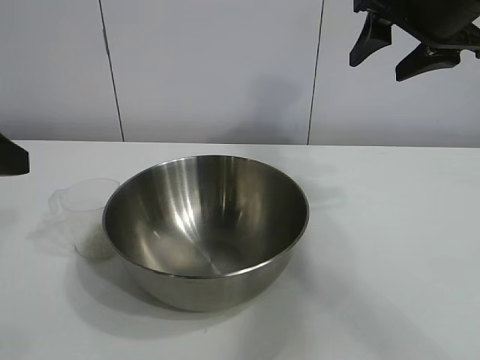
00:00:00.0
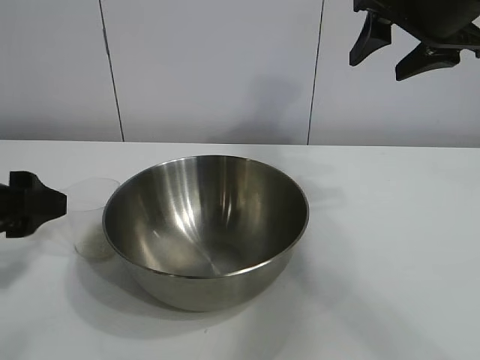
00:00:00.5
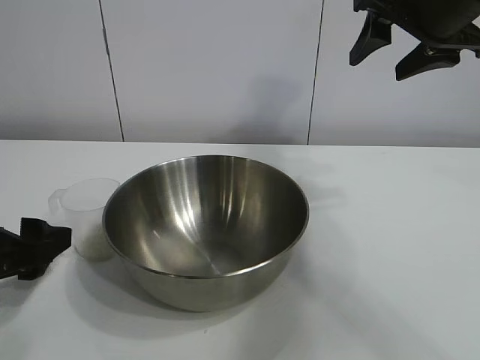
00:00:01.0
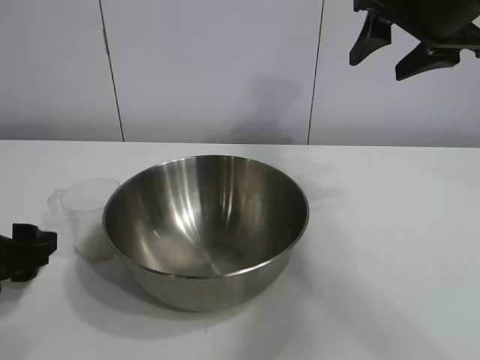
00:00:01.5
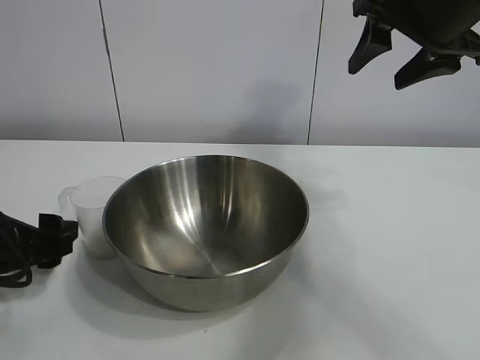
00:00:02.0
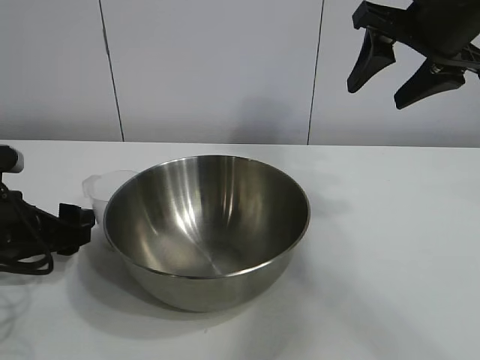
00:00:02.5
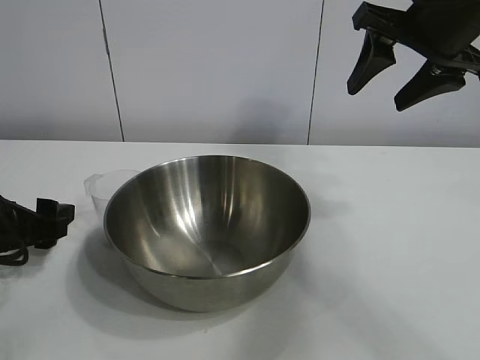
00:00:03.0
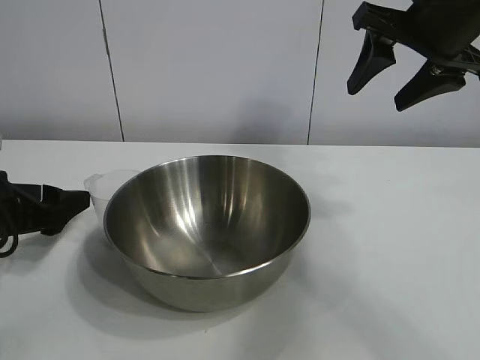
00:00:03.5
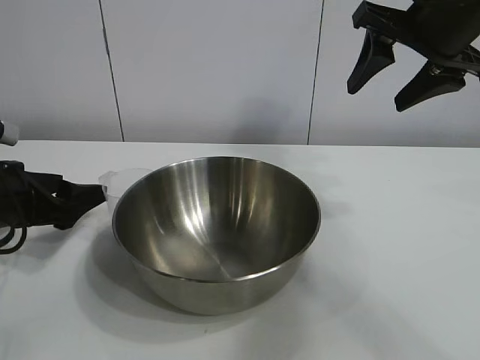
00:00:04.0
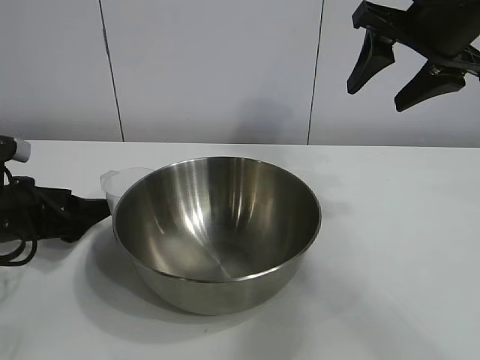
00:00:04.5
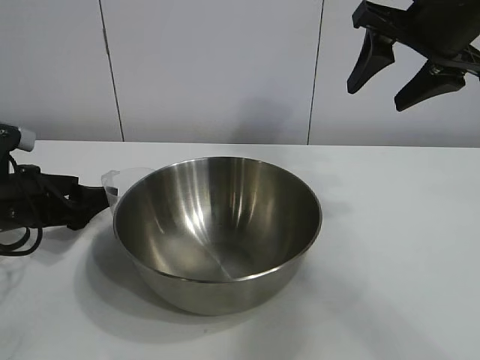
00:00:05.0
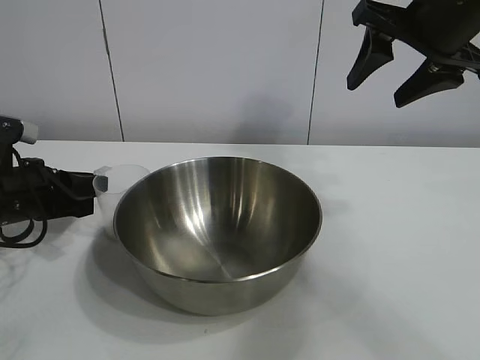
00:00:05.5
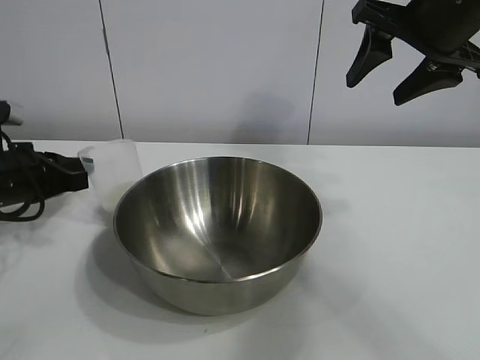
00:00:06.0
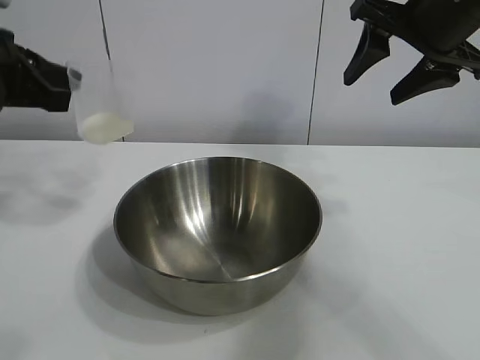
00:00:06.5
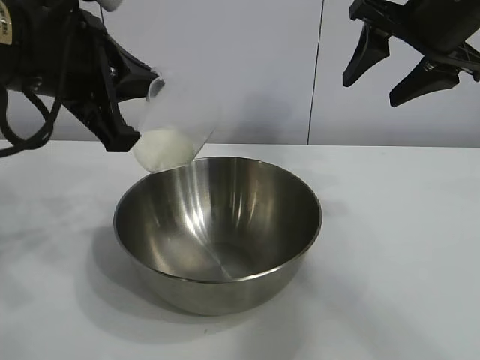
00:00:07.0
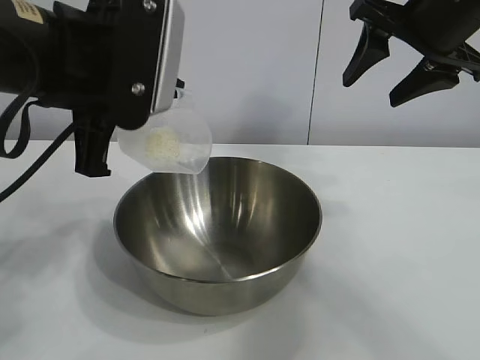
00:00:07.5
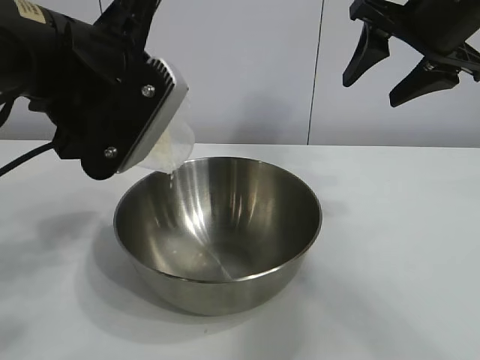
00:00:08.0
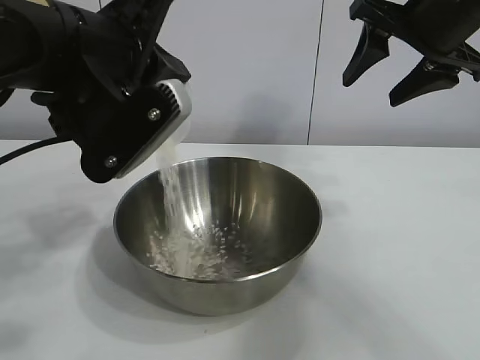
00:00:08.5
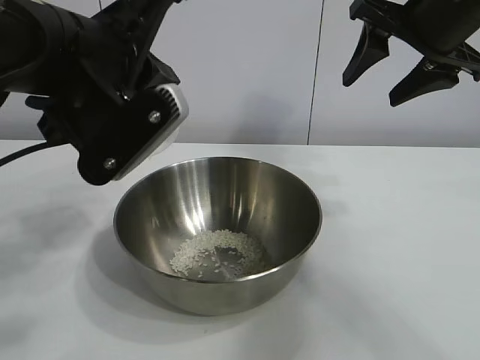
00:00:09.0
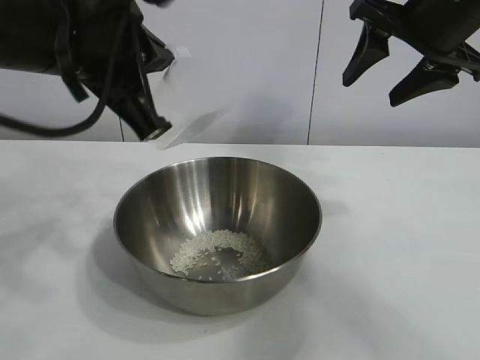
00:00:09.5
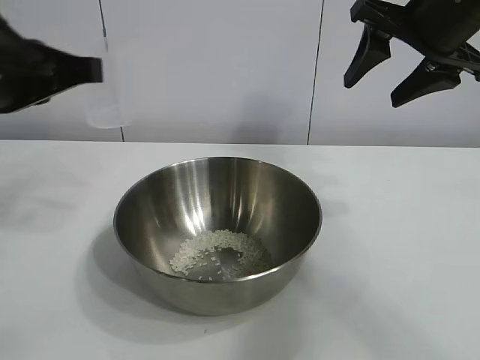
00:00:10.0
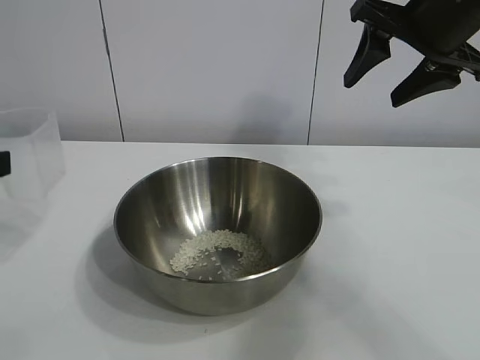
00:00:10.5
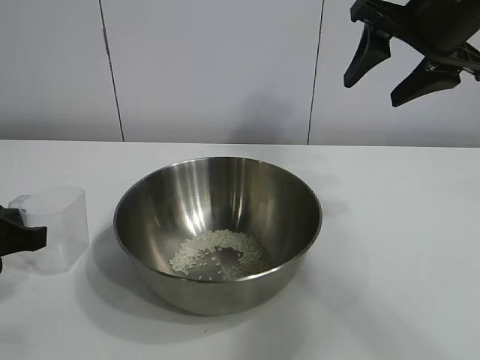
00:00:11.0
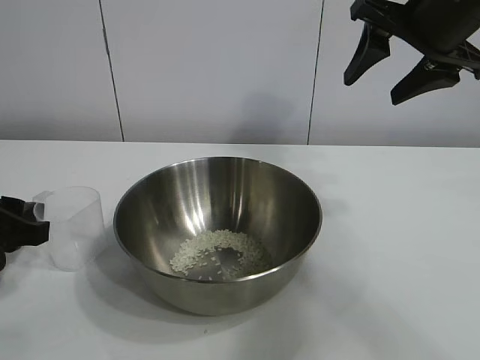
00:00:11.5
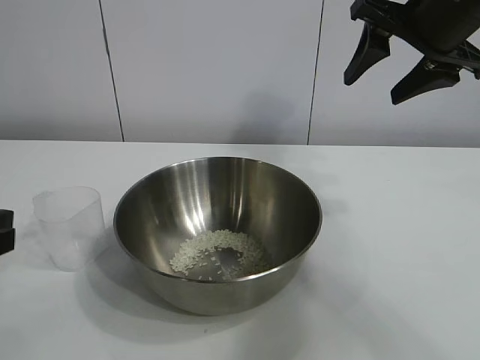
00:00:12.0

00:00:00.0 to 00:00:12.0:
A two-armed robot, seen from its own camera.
Task of the whole recording: the right gripper grasp the rice container and place it in the center of the table, the left gripper grasp the rice scoop and pour the rice into the rice container.
Step, 00:00:00.0 to 00:00:05.5: Grasp the cup with rice in it with left gripper.
Step, 00:00:06.0 to 00:00:09.0: Pour the rice from the cup into the bowl with the left gripper.
Step, 00:00:09.5 to 00:00:11.5: Place the cup on the table with the left gripper.

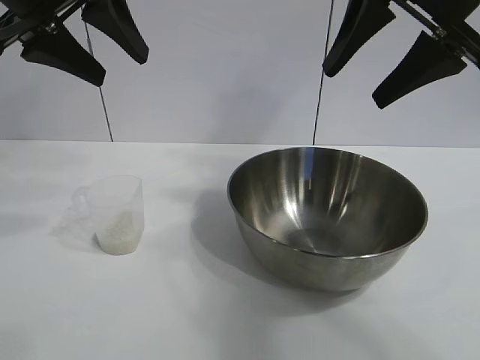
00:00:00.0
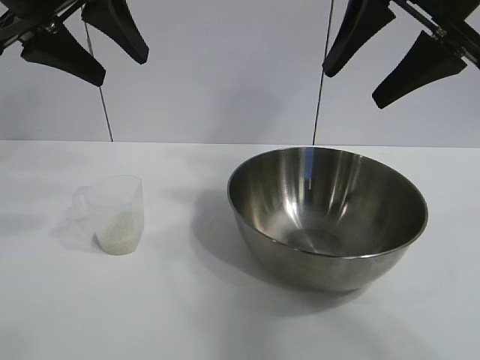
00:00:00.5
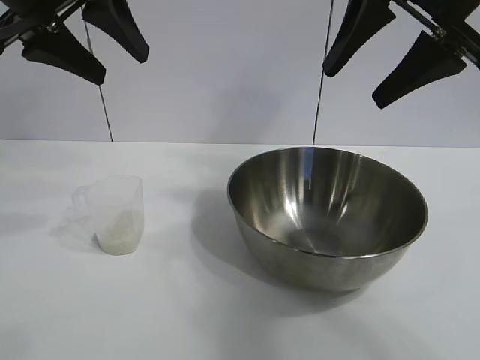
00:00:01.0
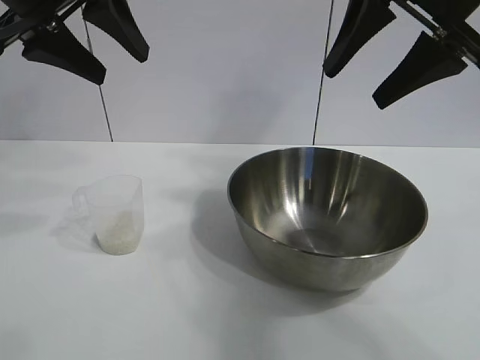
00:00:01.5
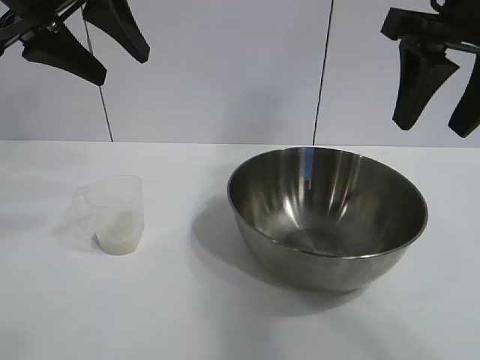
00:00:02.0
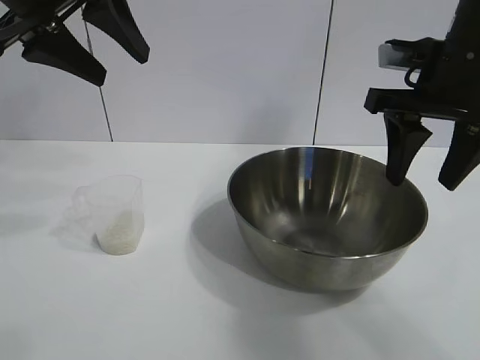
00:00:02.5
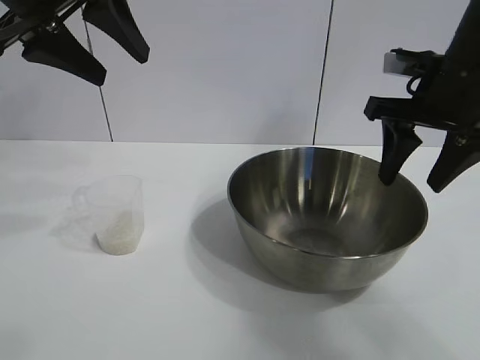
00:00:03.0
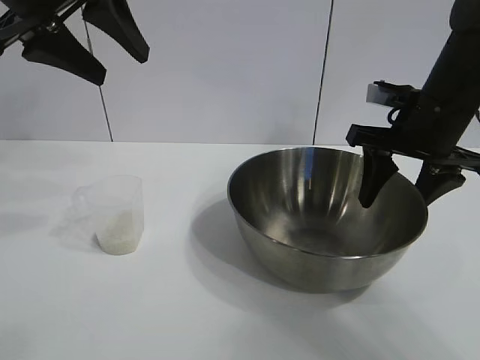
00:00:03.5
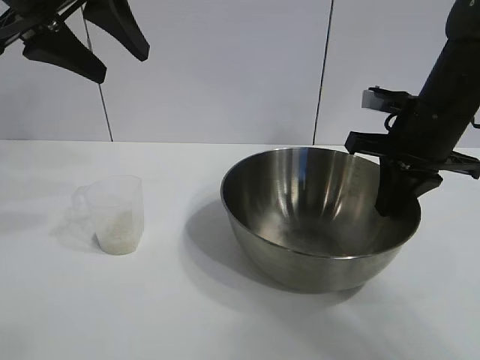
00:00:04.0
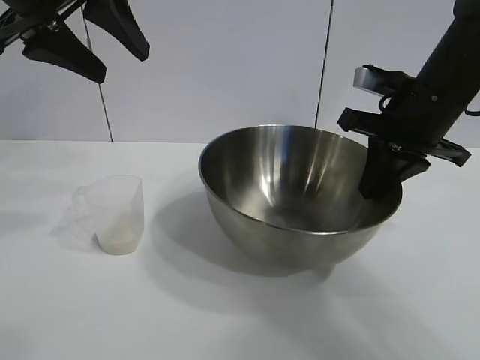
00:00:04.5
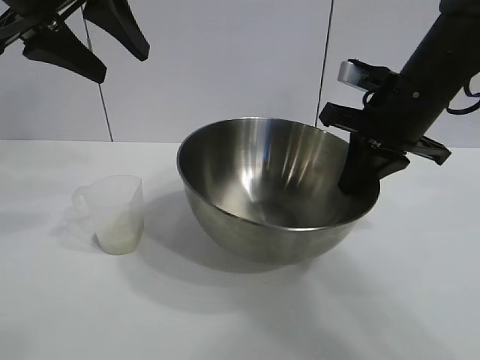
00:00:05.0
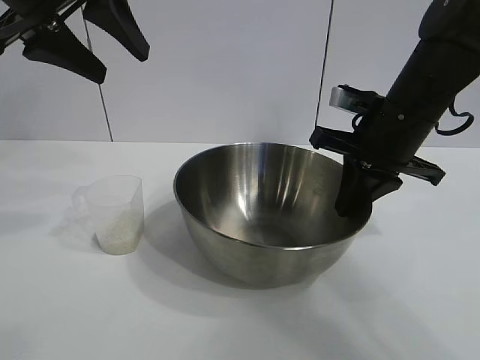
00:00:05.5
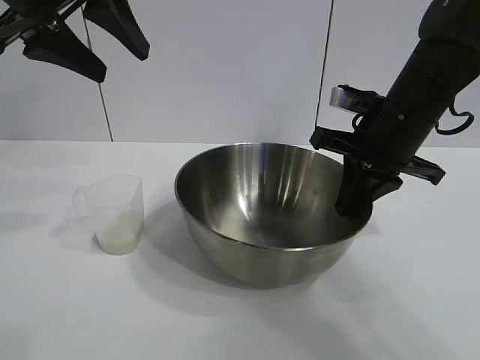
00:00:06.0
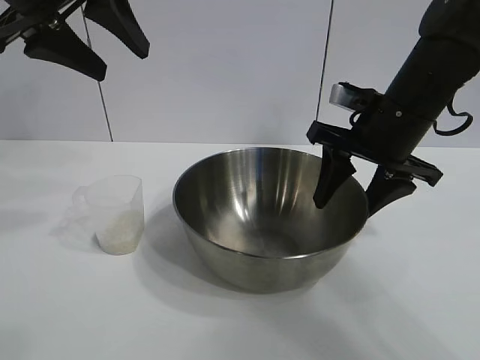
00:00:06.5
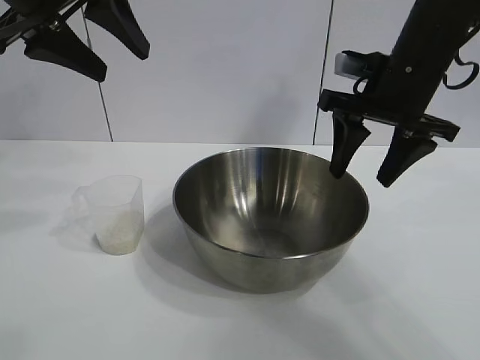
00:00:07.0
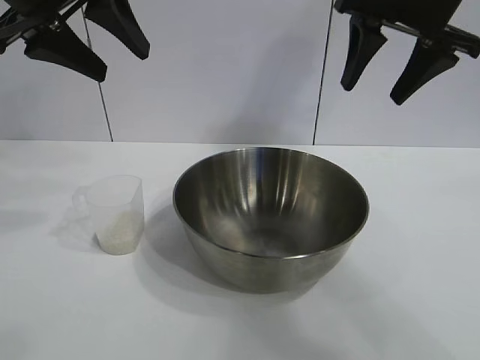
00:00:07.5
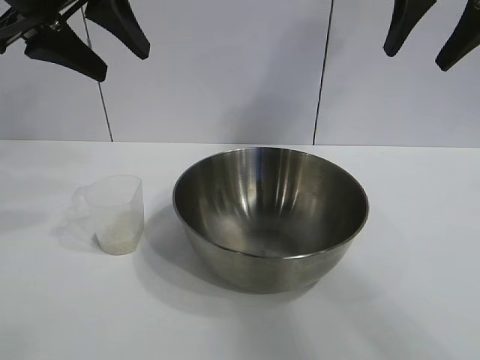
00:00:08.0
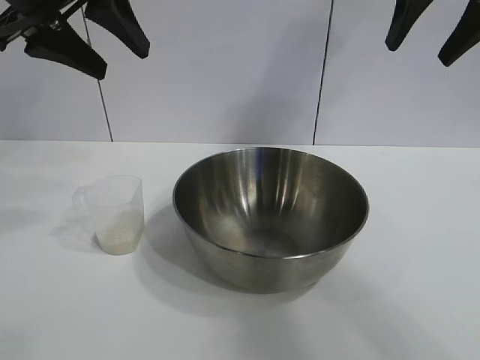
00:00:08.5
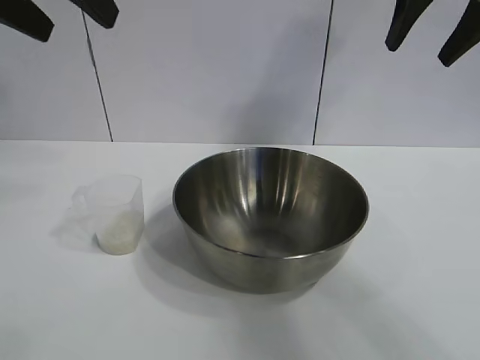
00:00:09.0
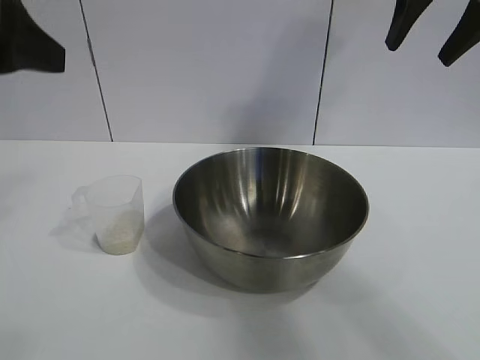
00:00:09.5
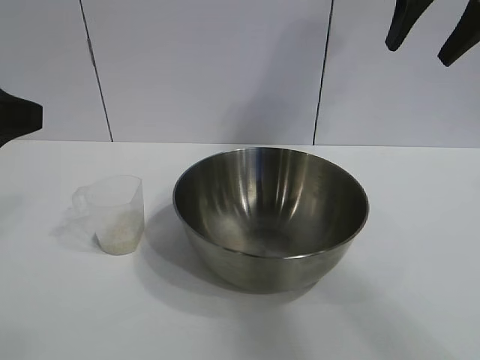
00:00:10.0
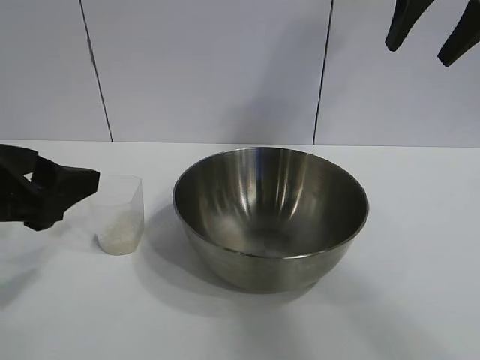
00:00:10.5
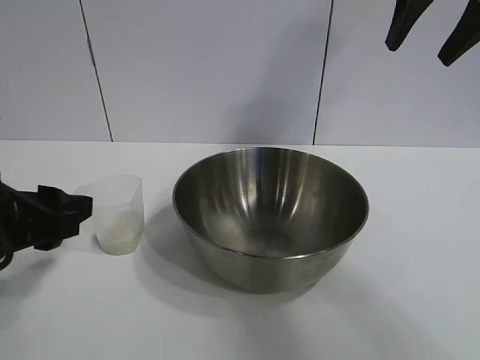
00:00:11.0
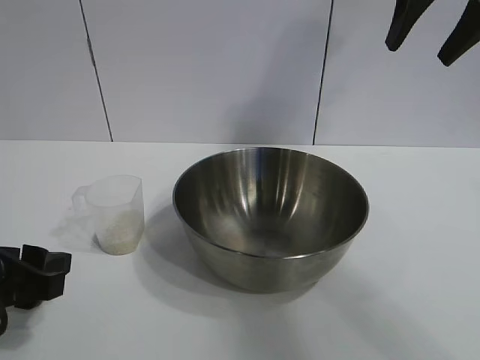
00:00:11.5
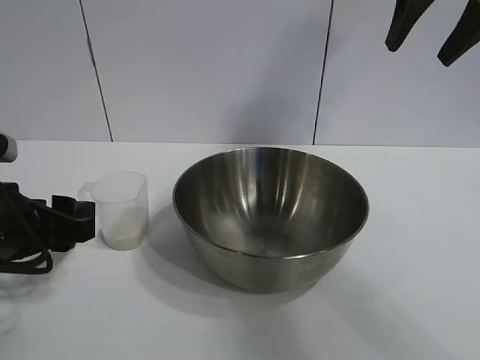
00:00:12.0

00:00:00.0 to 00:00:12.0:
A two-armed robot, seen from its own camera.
Task of the whole recording: the right gripper grasp the rice container and place it in the center of the table, the left gripper grasp the rice scoop and pour the rice into the rice container.
Step, 00:00:01.5 to 00:00:06.5: Move the bowl in the center of view with right gripper.

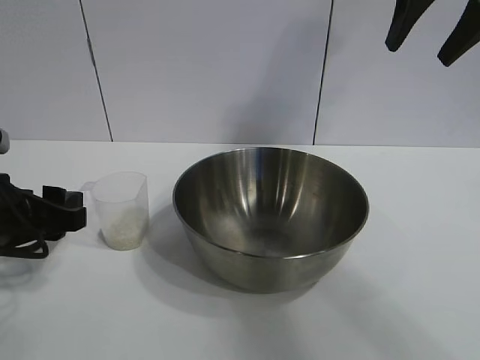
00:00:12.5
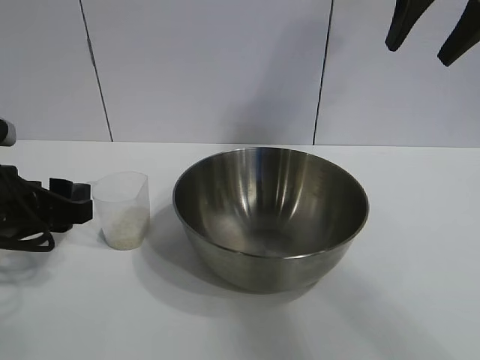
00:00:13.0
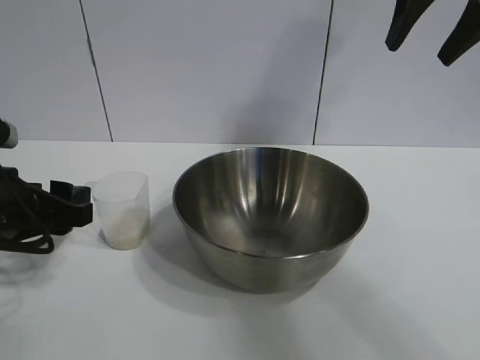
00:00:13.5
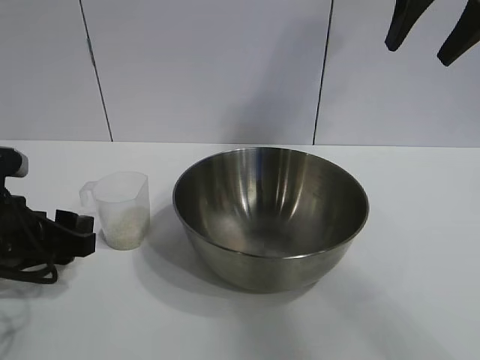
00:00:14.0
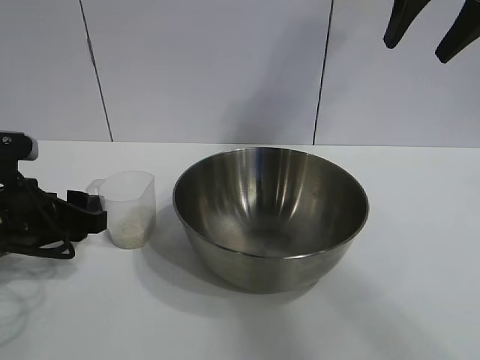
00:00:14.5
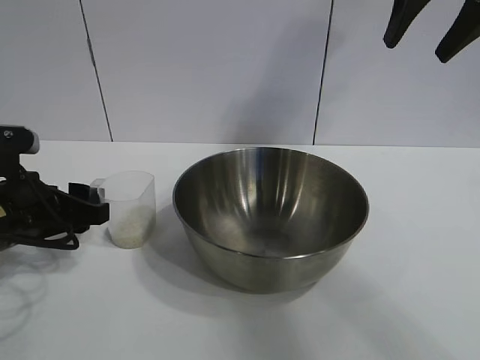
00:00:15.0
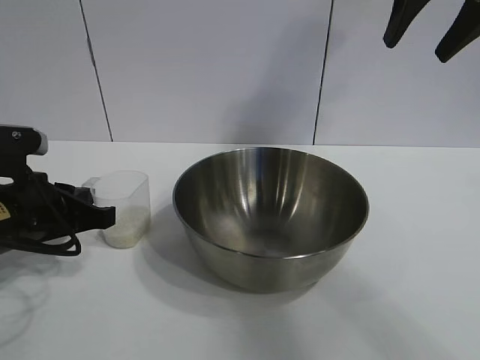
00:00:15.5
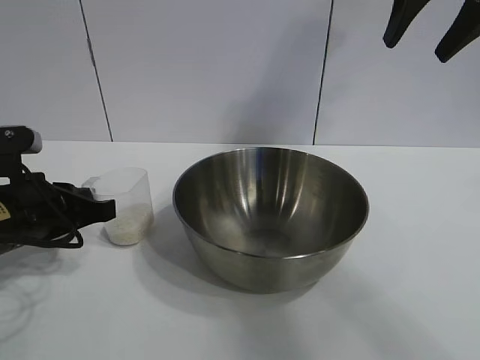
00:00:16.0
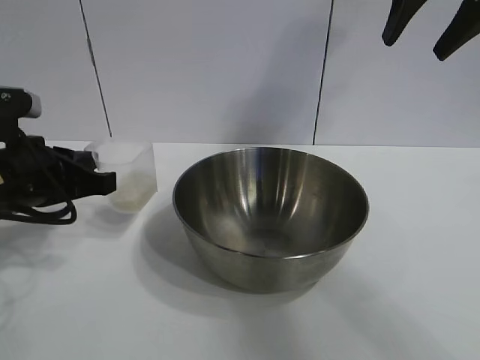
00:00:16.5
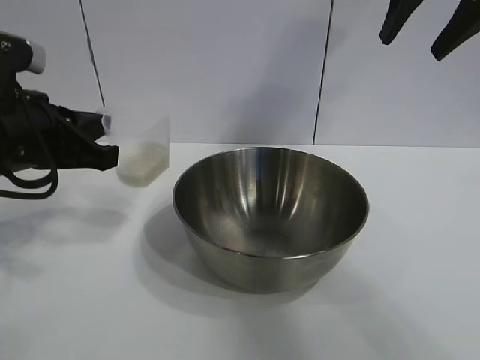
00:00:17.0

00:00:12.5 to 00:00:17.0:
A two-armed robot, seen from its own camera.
Task of the whole recording: the right gripper grasp the rice container and place it in the center of the table, the left gripper grasp the rice scoop and pour the rice into the rice container.
Step, 00:00:12.5 to 00:00:15.5: Grasp the cup with rice in it with left gripper.
